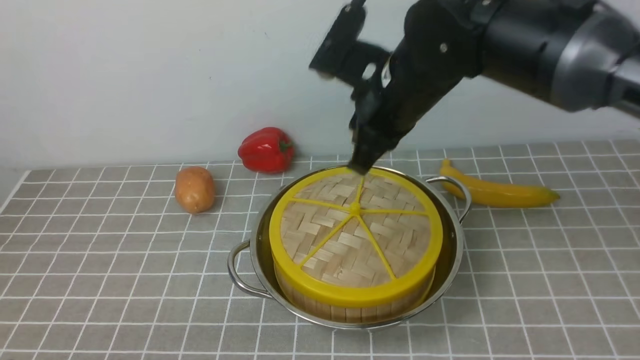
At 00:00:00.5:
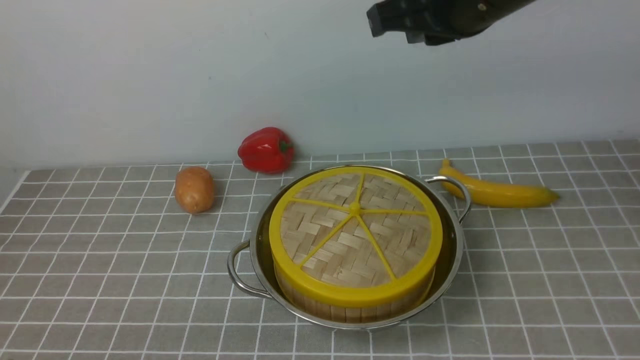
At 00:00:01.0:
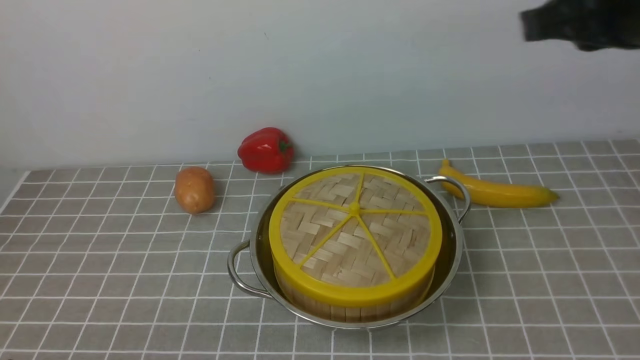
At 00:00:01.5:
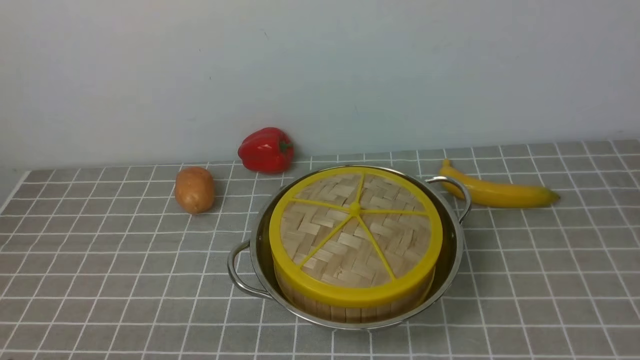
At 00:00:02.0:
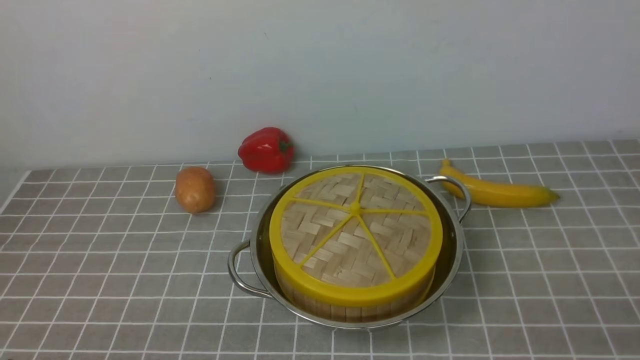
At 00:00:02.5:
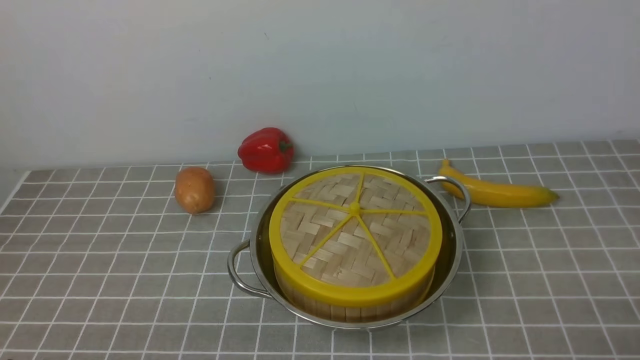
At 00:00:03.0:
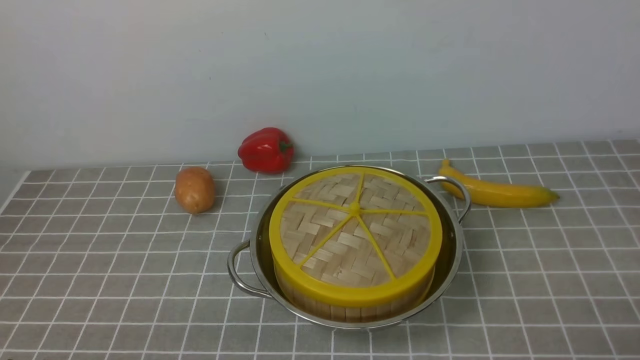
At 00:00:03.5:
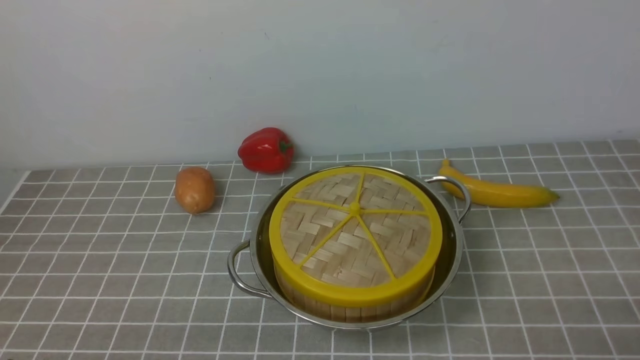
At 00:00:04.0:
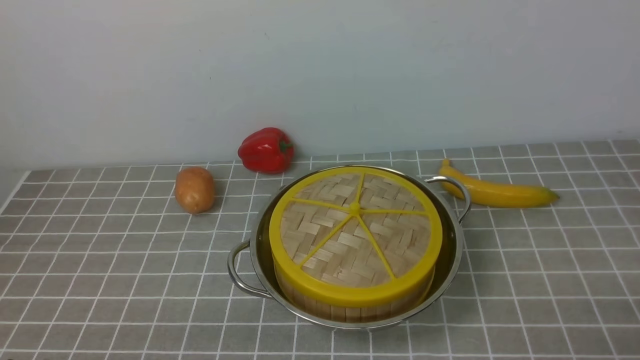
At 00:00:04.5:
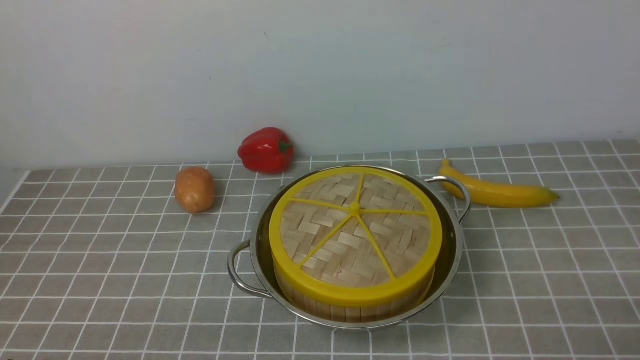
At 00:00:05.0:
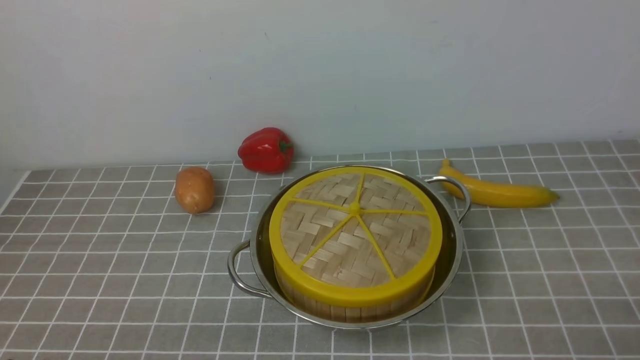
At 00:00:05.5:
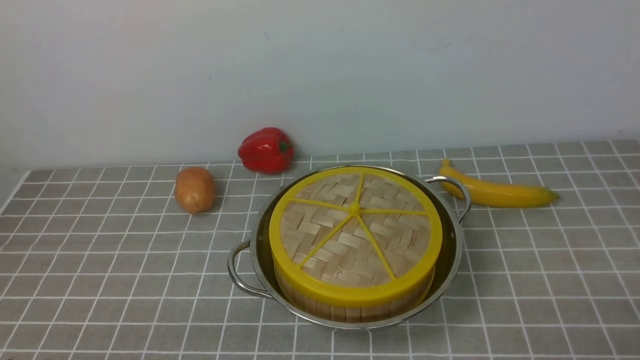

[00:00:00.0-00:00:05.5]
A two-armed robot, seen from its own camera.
Task of the whole recording: place the steamer in the pot on the grey tablecloth, and put the lid on the steamer.
00:00:00.0 to 00:00:02.0: The right gripper travels backward, to the right and downward by approximately 40 cm.
00:00:03.5 to 00:00:05.5: The two grippers keep their place.

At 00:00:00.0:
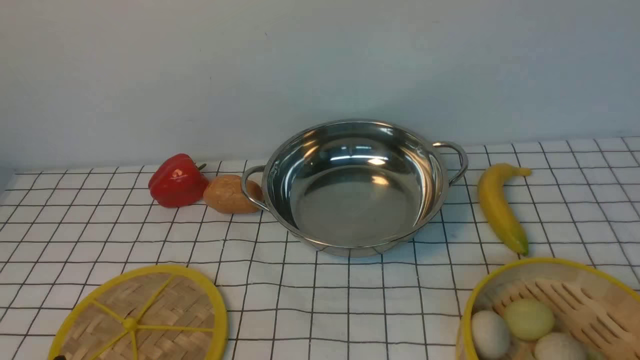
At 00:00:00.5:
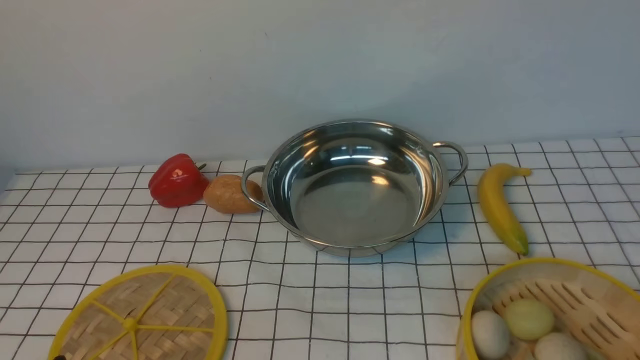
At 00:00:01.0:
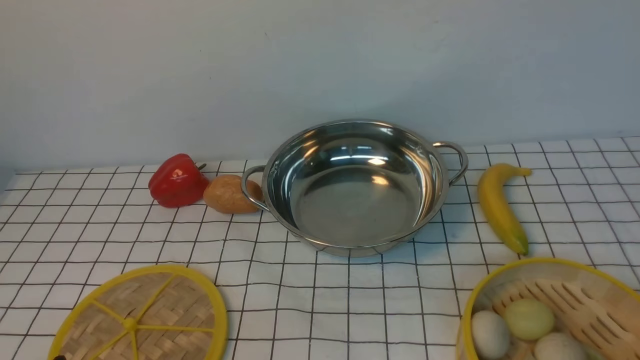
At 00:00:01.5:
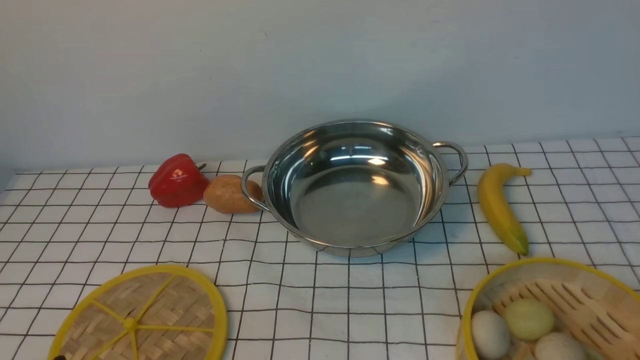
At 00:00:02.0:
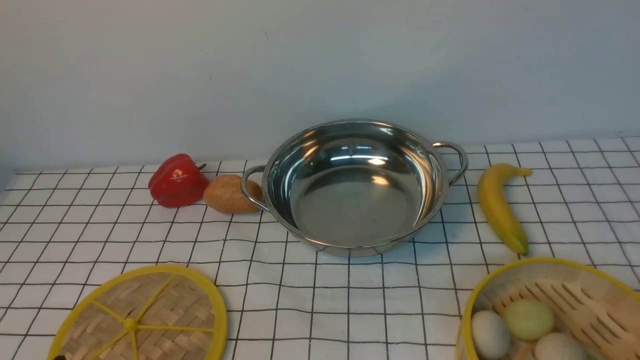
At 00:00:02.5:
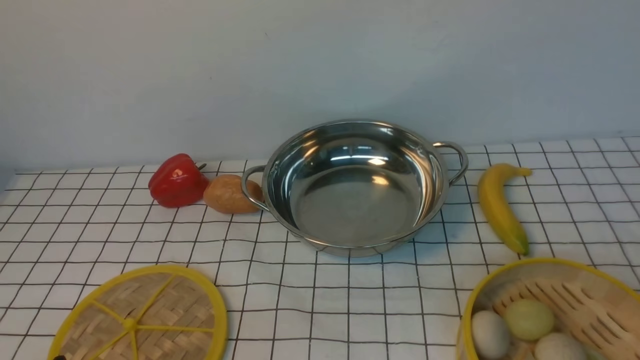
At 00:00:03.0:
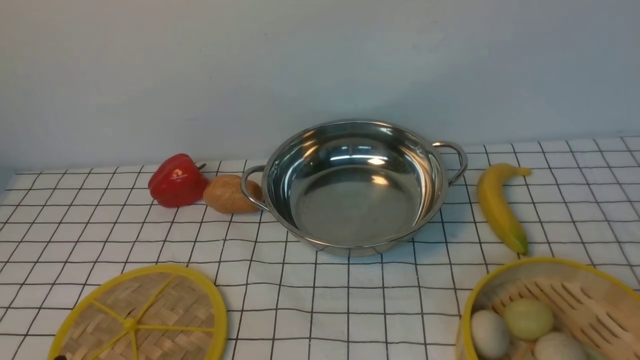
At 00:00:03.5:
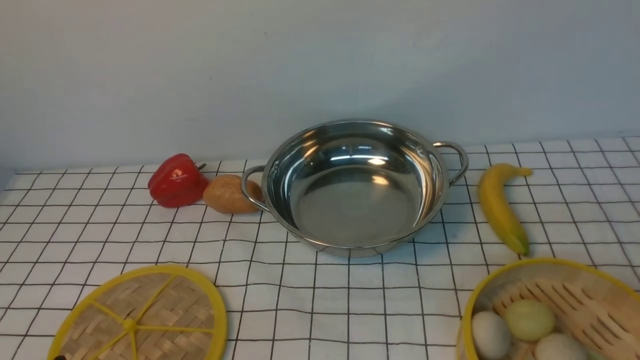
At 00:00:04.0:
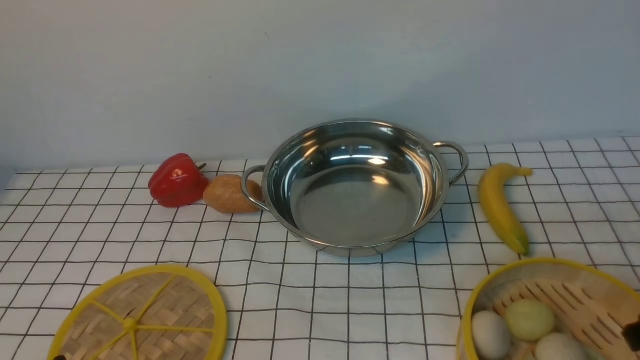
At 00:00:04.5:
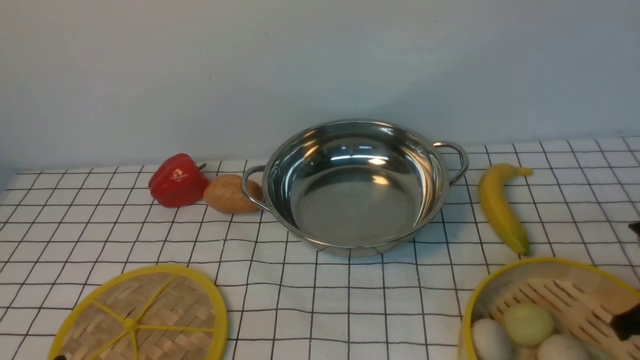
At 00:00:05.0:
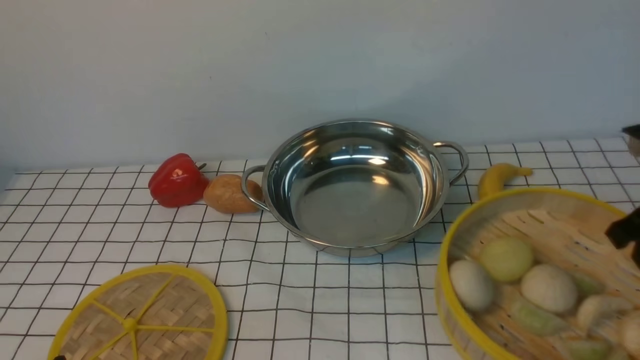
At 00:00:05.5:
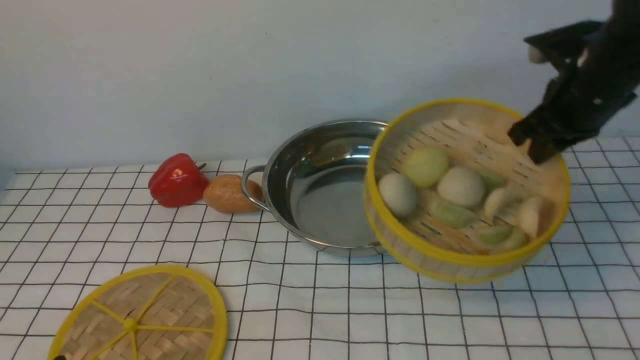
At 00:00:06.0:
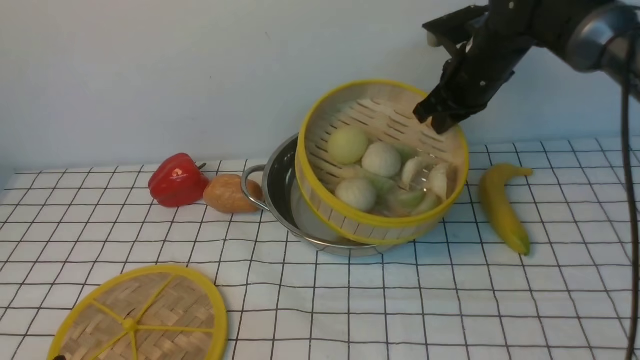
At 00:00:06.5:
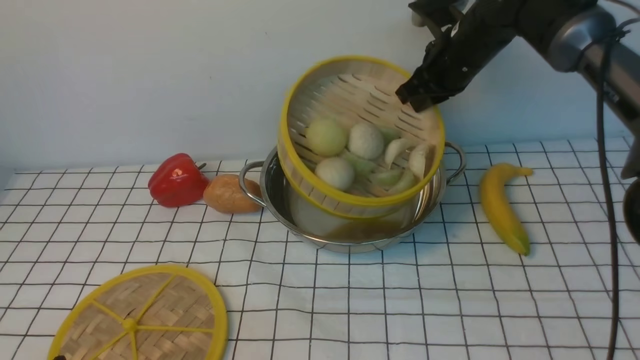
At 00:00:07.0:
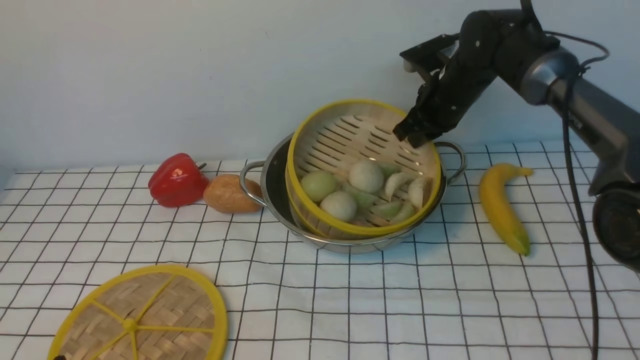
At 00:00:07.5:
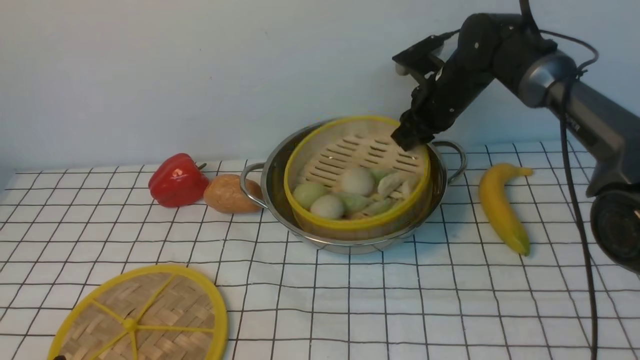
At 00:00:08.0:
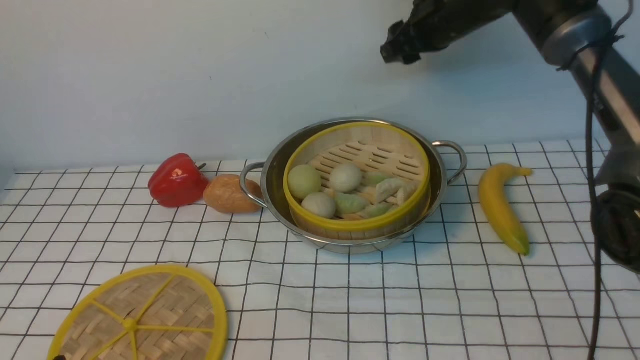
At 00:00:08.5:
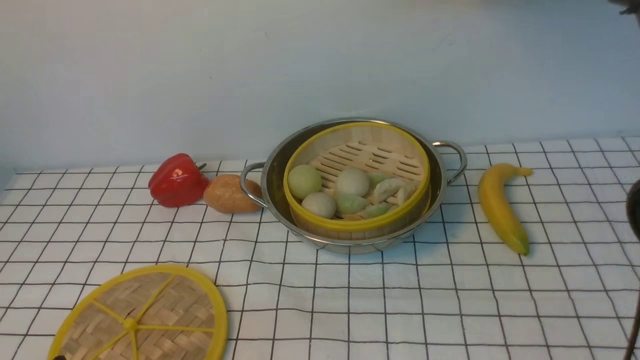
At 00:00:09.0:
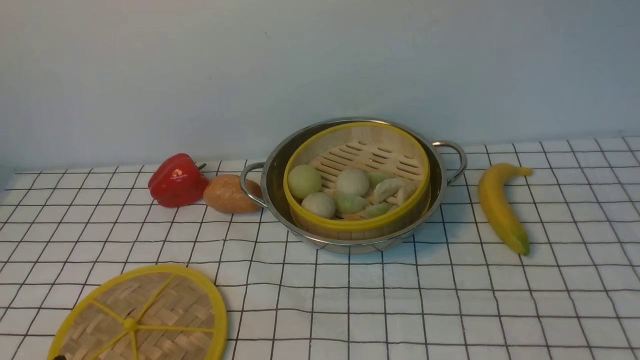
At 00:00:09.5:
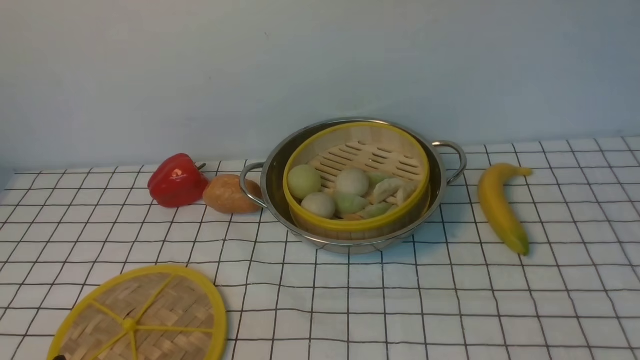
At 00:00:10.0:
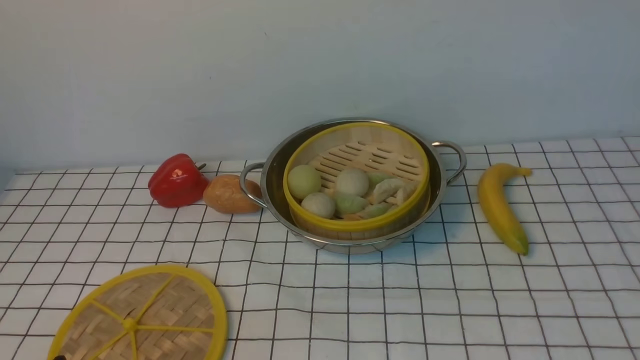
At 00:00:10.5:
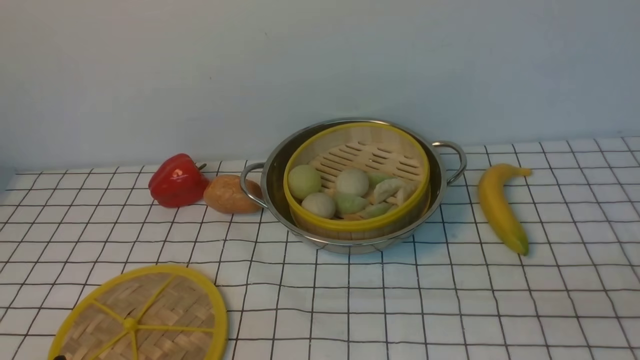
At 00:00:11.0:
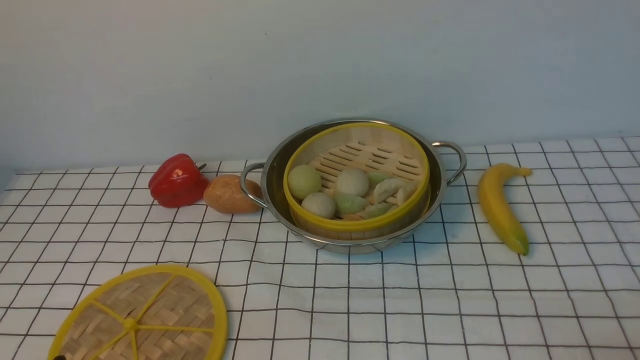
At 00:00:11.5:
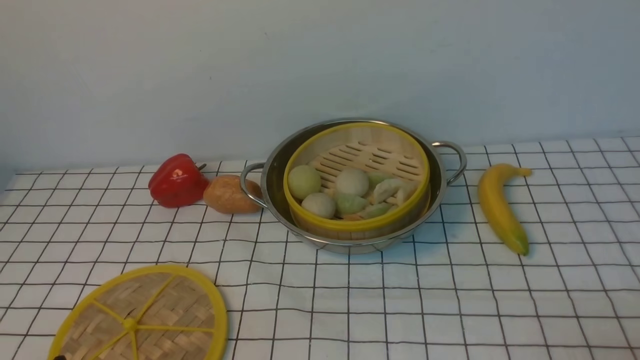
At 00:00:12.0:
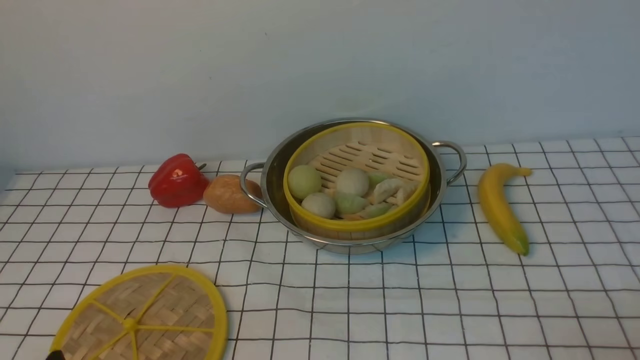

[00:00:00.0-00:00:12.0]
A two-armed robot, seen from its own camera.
Task of the whole recording: place the steamer in the pot on the white tablecloth, and put the lid on the steamer.
Step, 00:00:05.0 to 00:00:07.5: use the right arm to put the steamer into the iron steamer pot in the middle.
00:00:00.0 to 00:00:02.0: The two grippers keep their place.
00:00:04.0 to 00:00:06.0: The right gripper shifts approximately 30 cm forward and to the left, and closes up.
00:00:06.0 to 00:00:08.0: The right gripper moves approximately 5 cm, and opens.
00:00:08.0 to 00:00:10.0: The right gripper heads backward and to the right, covering roughly 35 cm, and closes up.

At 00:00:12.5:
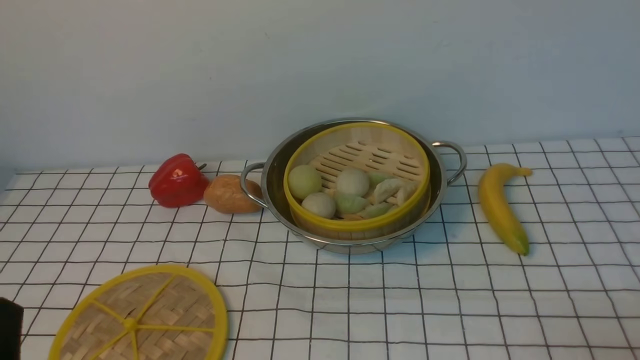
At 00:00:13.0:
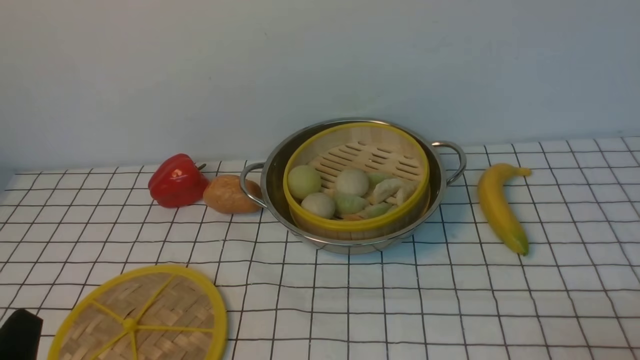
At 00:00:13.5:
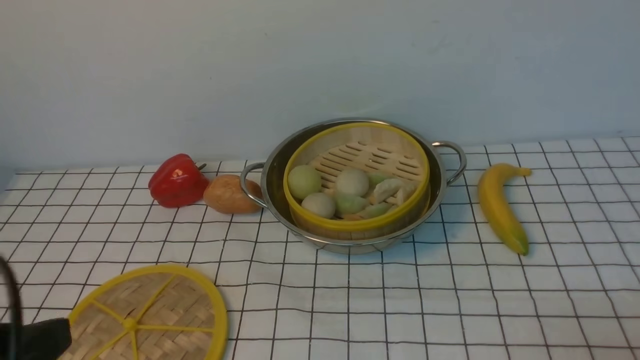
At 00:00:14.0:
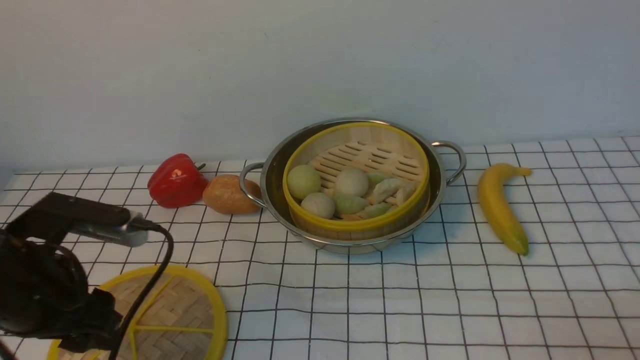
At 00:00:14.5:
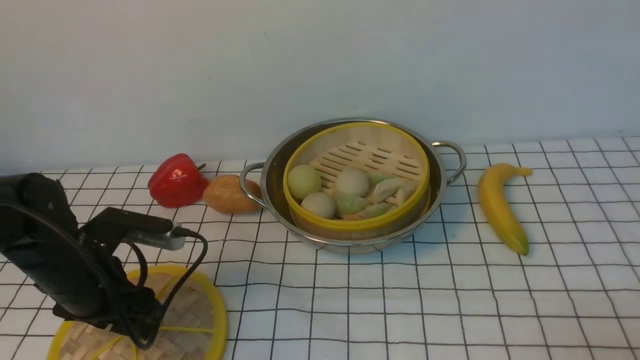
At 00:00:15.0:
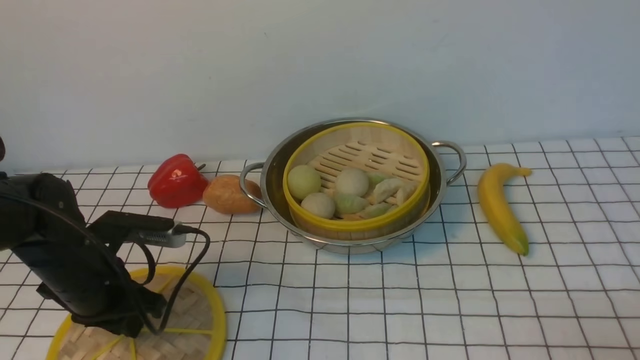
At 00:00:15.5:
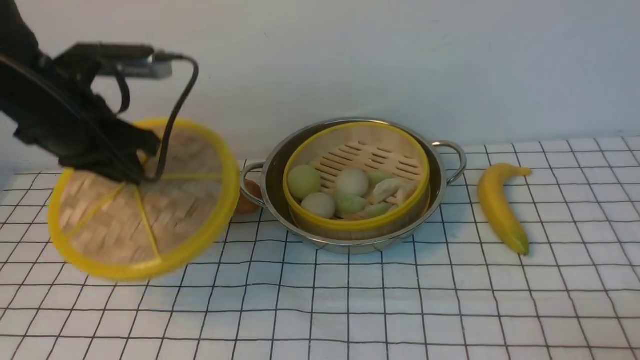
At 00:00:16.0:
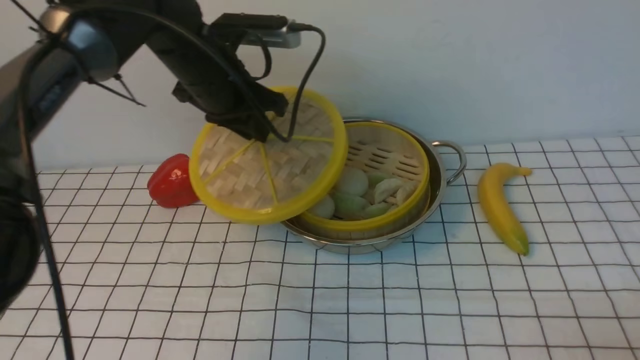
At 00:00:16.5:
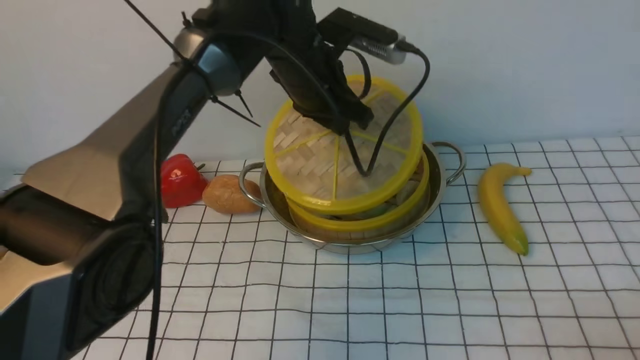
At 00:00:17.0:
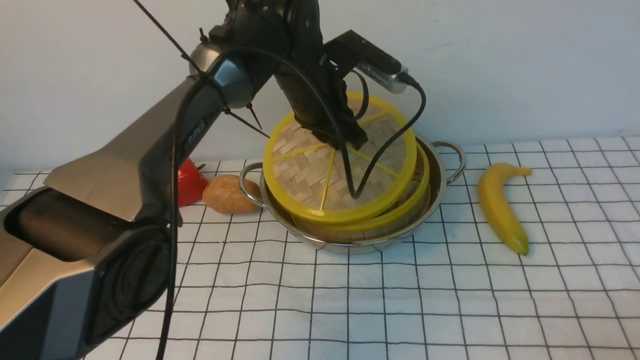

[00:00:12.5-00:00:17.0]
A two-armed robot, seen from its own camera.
Task of the whole recording: place the steamer in the pot on the white tablecloth, and put the lid on the steamer.
Step, 00:00:12.5 to 00:00:15.0: use the left arm to lift the lid of the steamer.
00:00:12.5 to 00:00:14.5: The left gripper travels forward by about 20 cm.
00:00:14.5 to 00:00:17.0: The left gripper heads to the right and forward, covering some 30 cm, and closes up.
